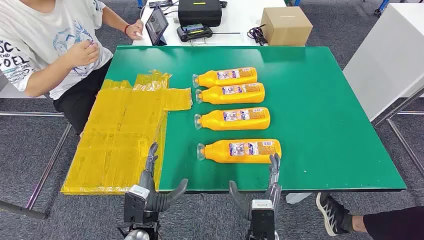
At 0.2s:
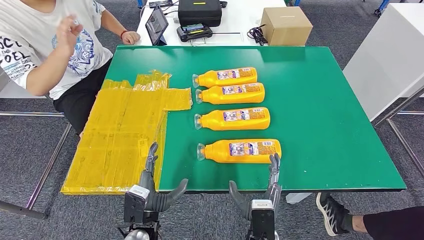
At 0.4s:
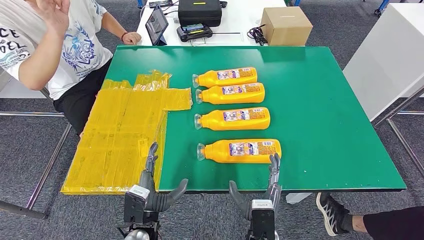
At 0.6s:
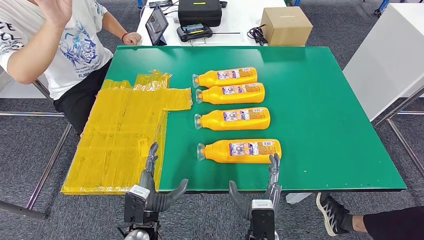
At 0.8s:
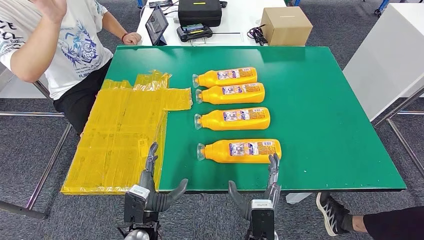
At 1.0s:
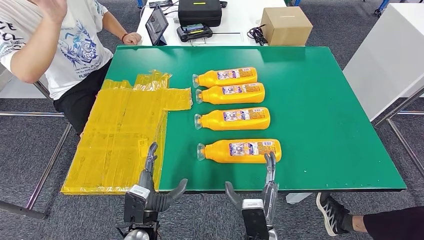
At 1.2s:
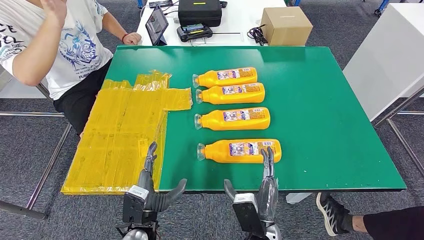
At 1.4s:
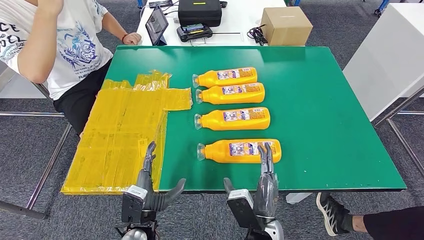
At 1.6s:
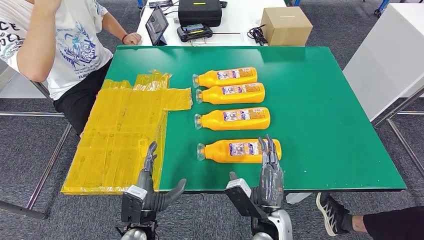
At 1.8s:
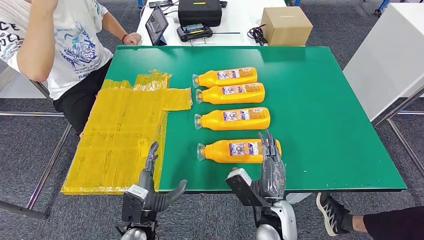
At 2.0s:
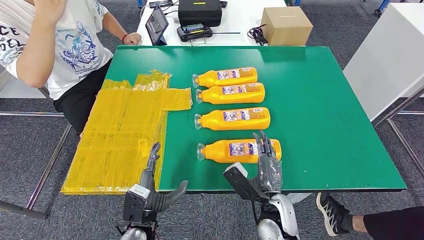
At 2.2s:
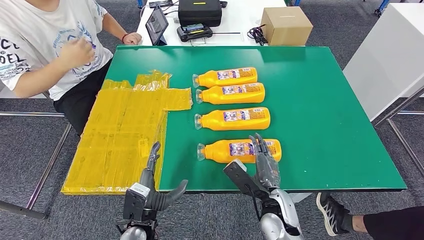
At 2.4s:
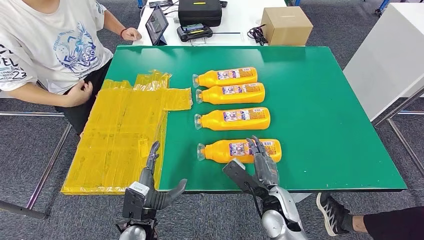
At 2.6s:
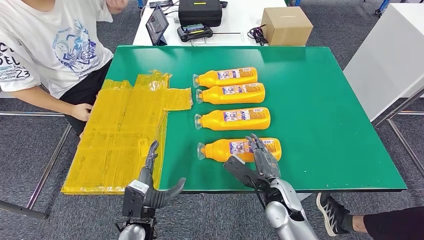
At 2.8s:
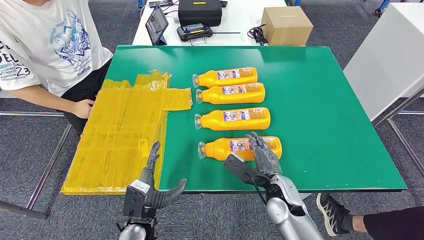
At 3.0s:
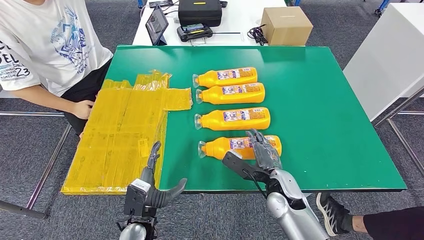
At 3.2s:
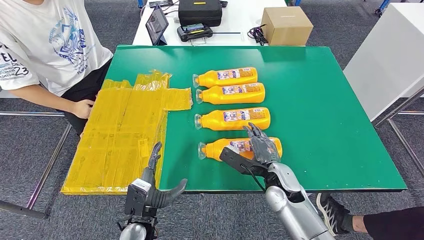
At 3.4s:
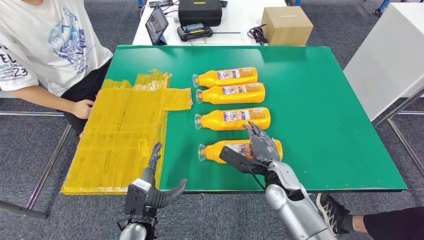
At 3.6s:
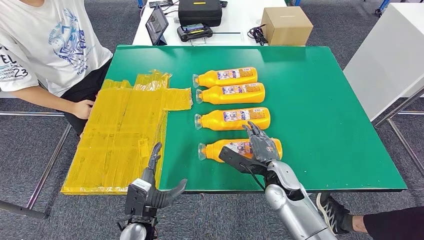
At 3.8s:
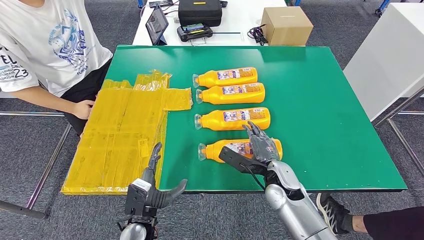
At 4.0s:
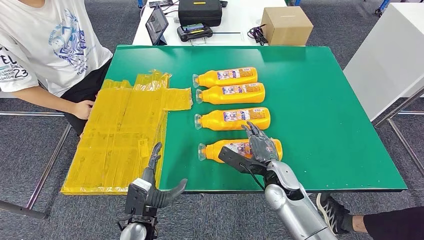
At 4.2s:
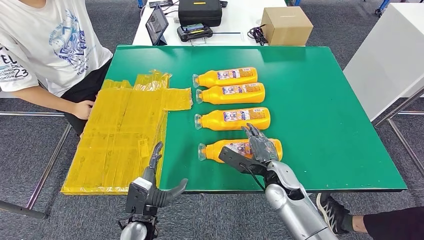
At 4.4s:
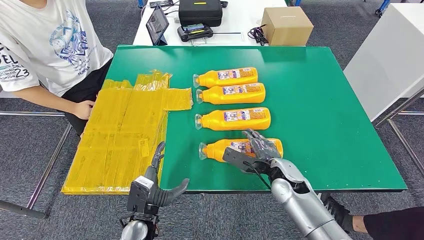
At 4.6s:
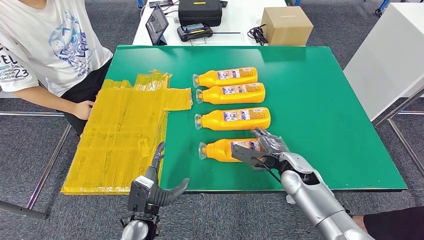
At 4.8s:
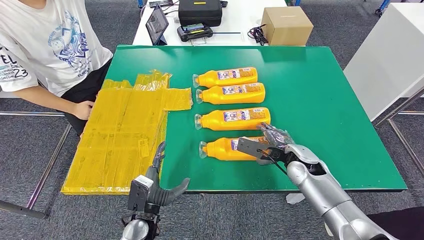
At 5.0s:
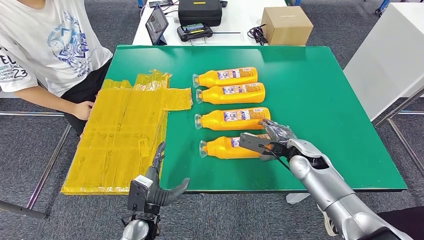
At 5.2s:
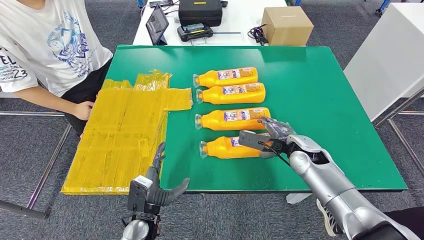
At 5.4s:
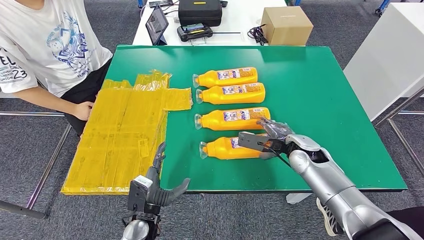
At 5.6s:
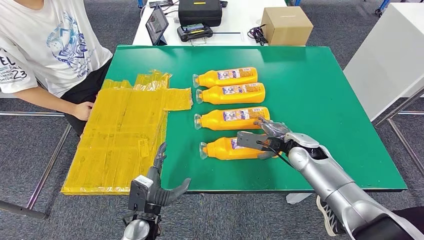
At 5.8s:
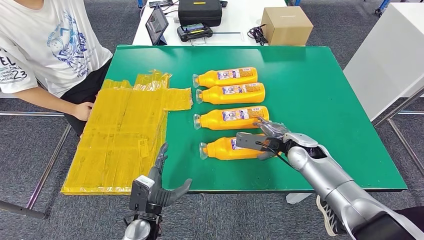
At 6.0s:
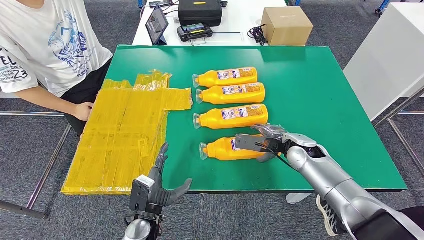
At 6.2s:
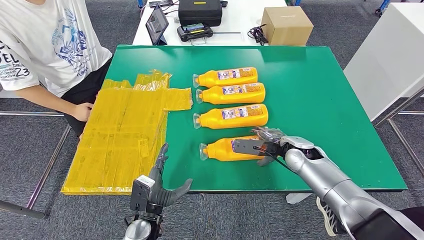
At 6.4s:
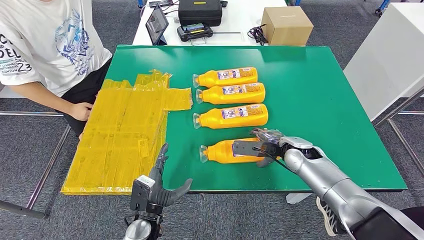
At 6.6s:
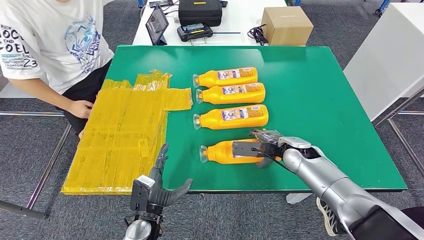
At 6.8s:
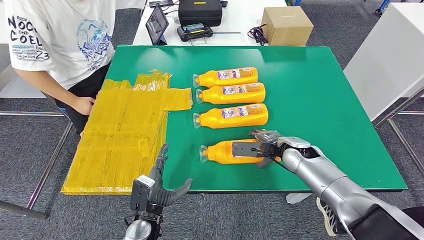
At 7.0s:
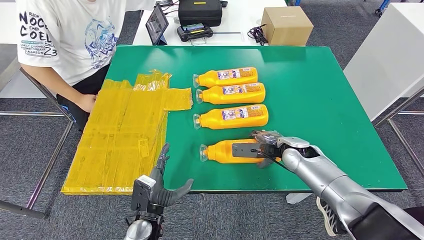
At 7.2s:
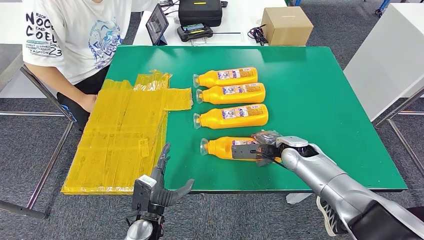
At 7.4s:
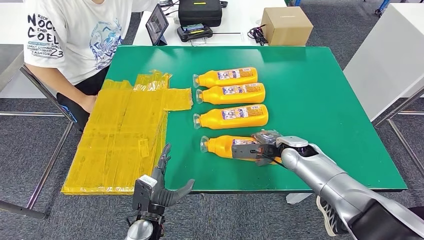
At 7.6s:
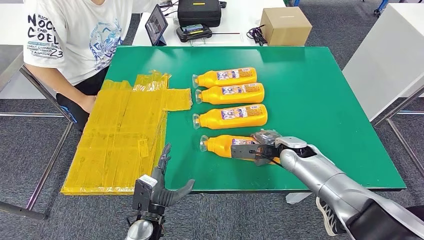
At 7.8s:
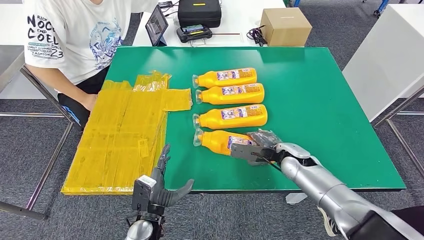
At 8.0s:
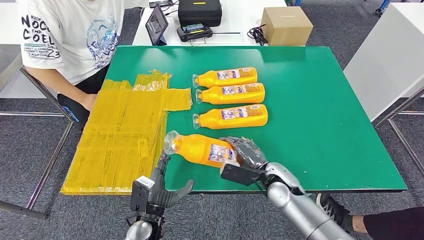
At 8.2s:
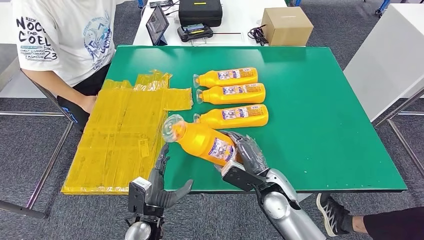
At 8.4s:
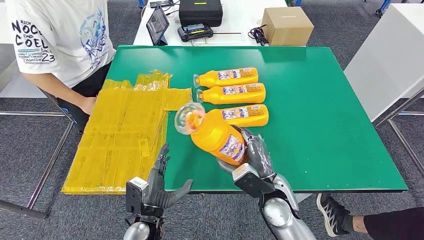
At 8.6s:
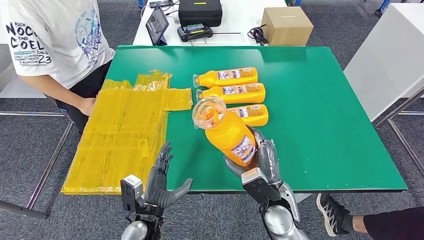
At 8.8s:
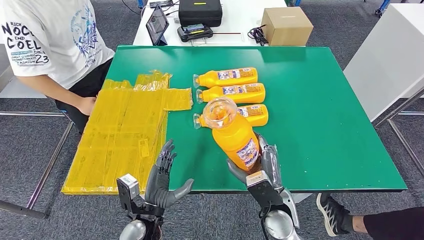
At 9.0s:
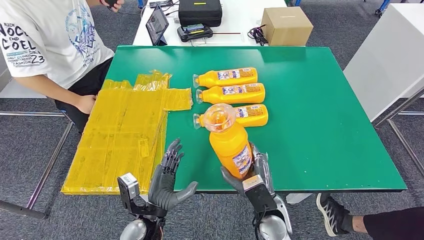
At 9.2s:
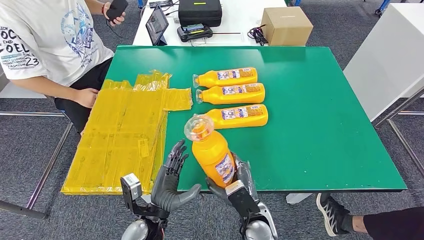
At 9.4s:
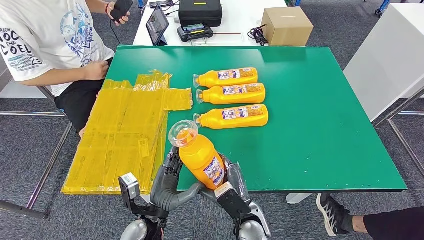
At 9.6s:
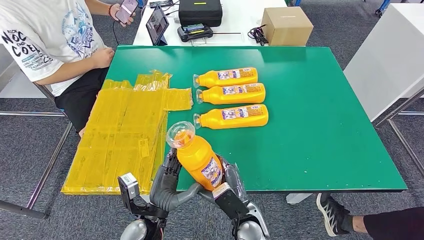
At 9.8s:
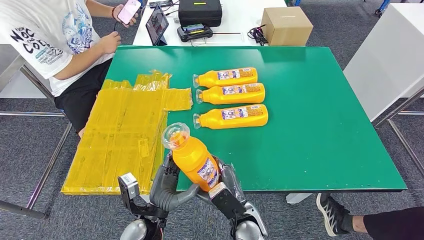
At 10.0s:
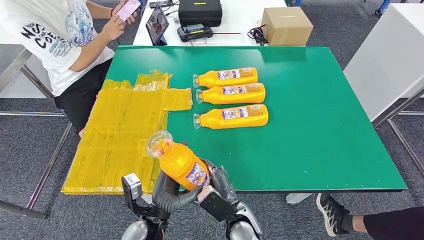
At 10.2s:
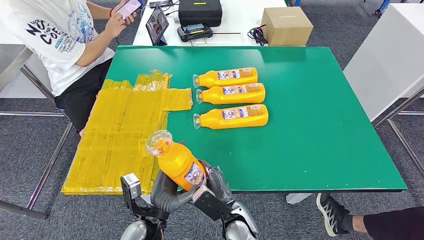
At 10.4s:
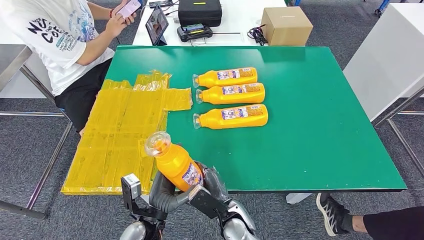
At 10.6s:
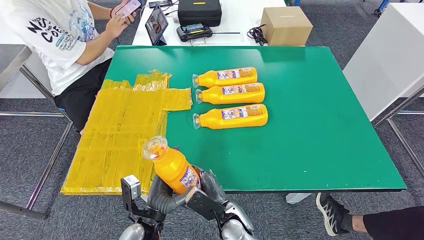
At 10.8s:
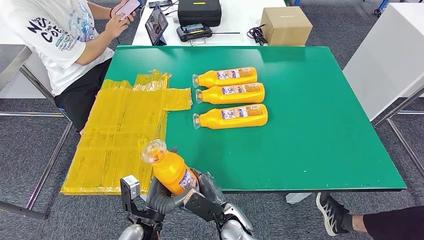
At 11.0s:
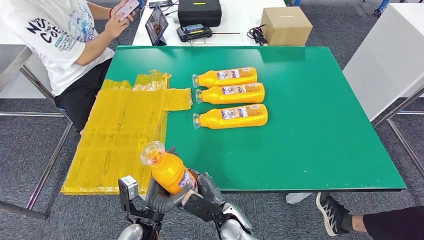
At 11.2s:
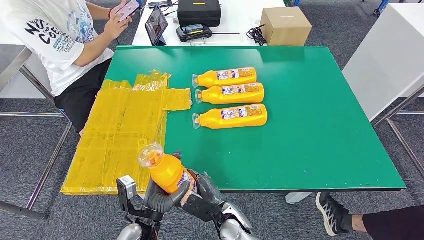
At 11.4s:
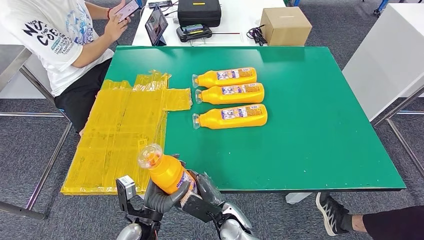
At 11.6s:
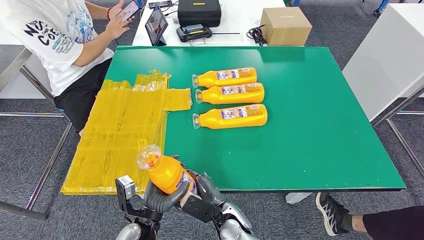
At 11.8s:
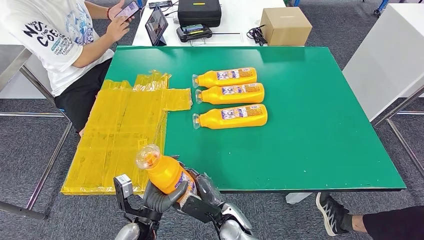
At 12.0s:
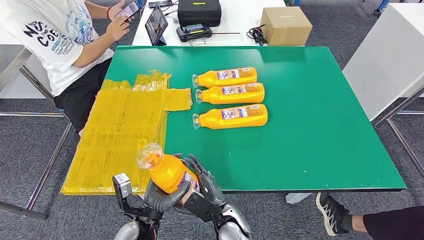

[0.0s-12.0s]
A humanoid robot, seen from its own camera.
Step, 0.0s to 9.6s: Take the fast-moving consumer goods bottle from the table.
1.6s to 3.0s: The right hand shifts approximately 10 cm forward.
3.0s to 4.4s: There are only small adjustments of the hands.
4.4s to 6.0s: The right hand heads forward and to the right, covering some 10 cm.
6.0s to 7.6s: The hands stay close to where they were, moving slightly.
9.0s to 10.4s: The right hand is displaced to the left by some 10 cm.
10.4s to 12.0s: The hands move only a little.

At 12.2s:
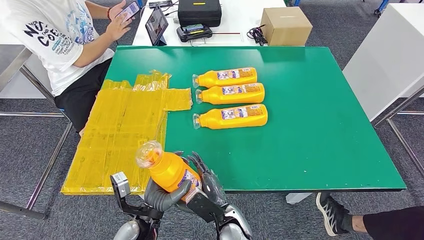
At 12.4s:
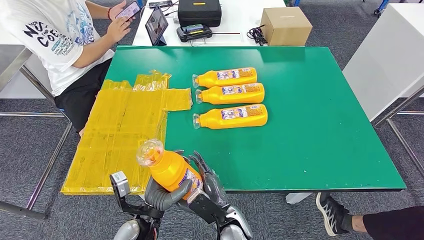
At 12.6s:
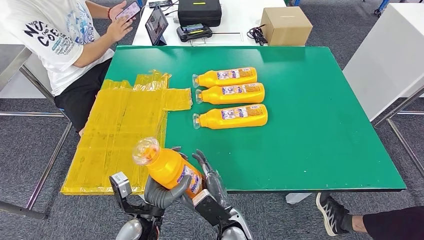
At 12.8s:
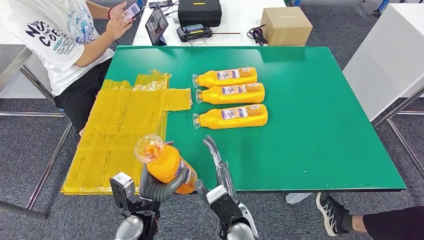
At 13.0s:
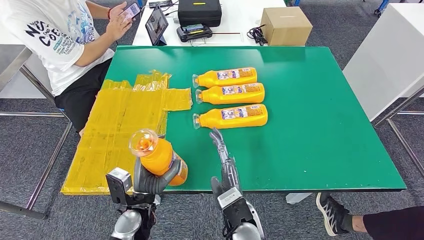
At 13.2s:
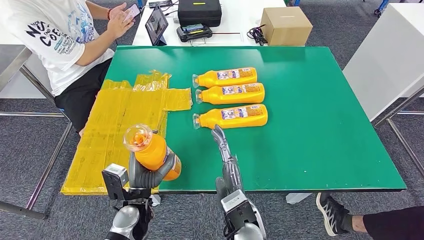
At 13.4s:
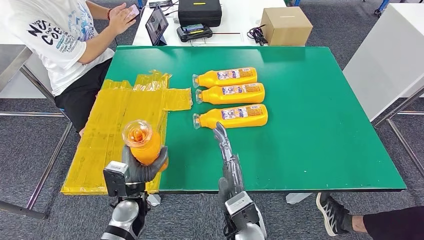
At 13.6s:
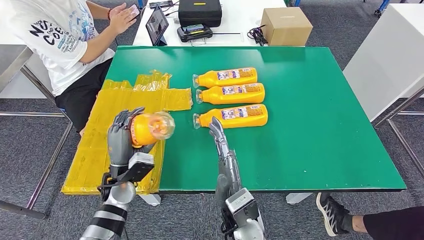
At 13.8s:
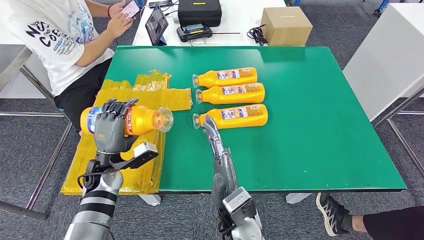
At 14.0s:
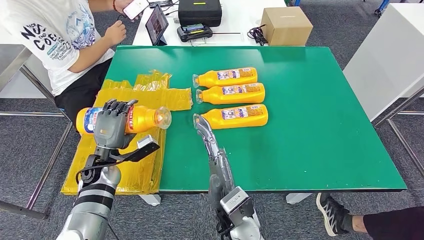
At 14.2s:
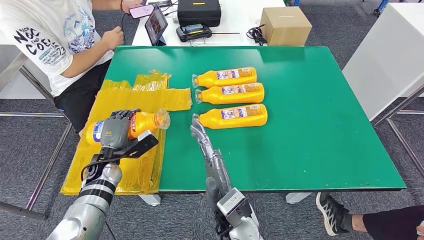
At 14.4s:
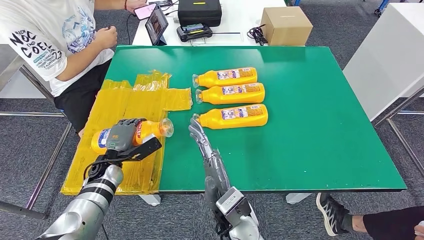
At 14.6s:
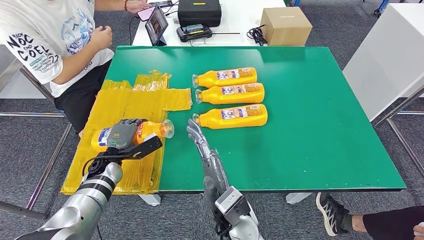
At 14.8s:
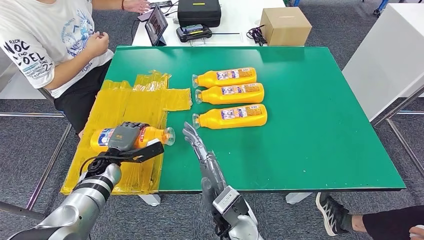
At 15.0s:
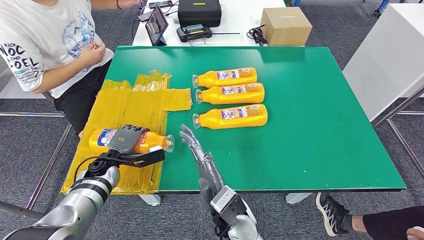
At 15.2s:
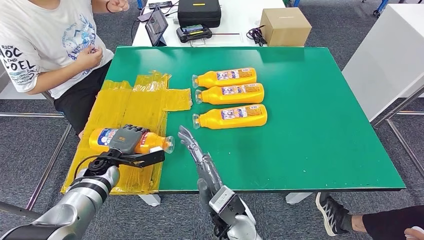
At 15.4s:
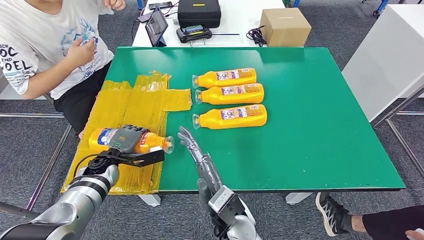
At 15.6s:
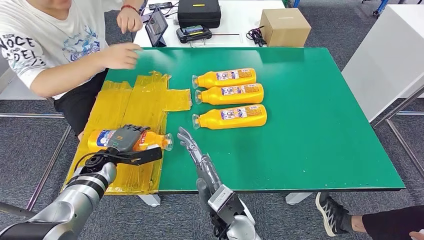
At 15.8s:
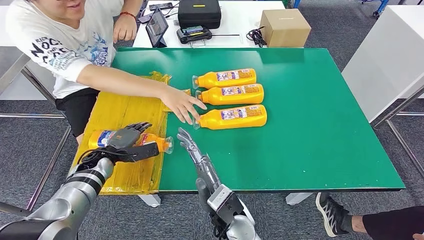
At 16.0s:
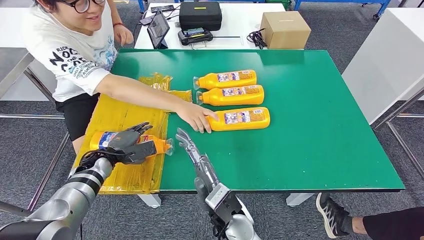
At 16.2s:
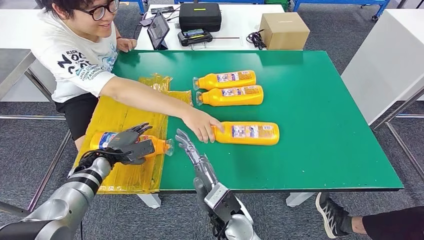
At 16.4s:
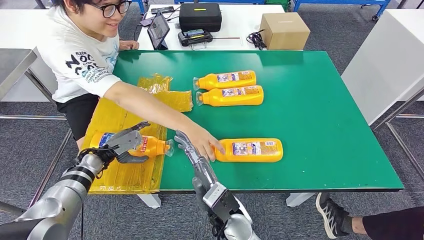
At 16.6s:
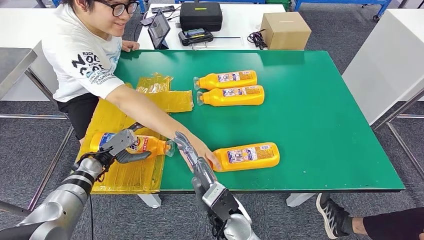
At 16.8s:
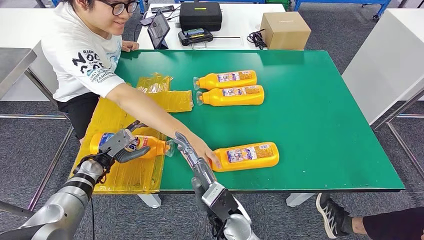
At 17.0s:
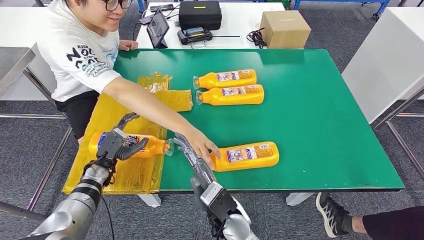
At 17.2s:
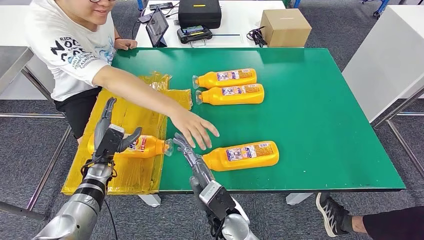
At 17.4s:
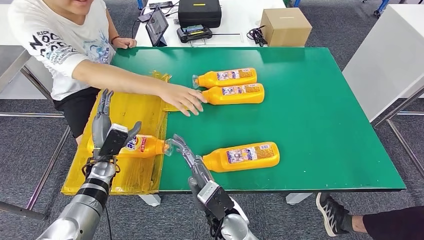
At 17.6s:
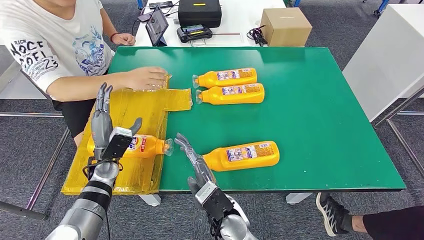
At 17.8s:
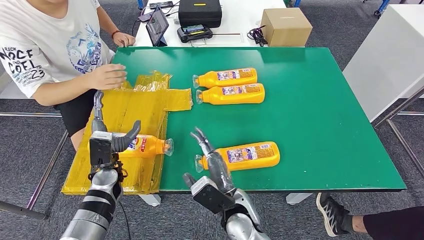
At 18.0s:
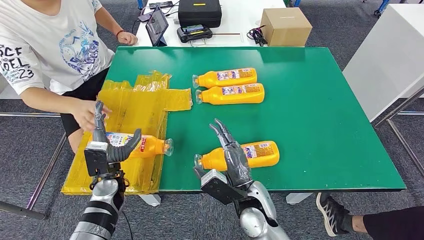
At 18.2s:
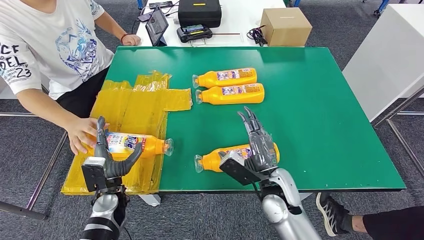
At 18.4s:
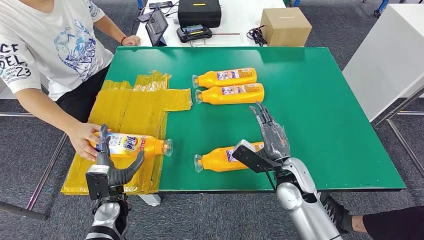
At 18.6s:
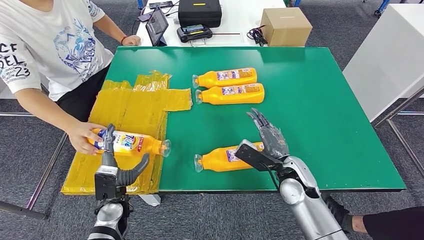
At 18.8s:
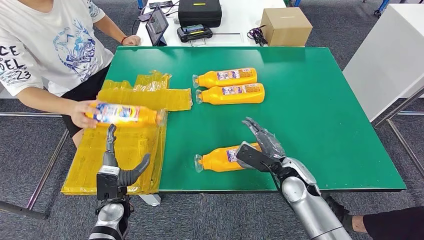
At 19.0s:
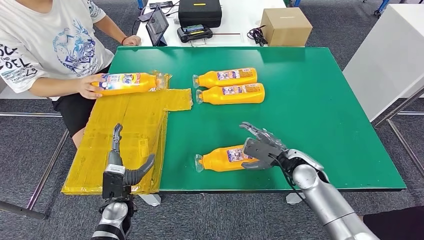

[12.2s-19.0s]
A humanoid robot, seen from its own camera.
Step, 12.2s to 15.0s: Flip the fast-moving consumer goods bottle to the front side.
12.2s to 13.6s: The right hand travels upward by some 10 cm, while the left hand heads forward and to the left, covering approximately 10 cm.
13.6s to 15.0s: The left hand is displaced to the left and forward by approximately 10 cm.
